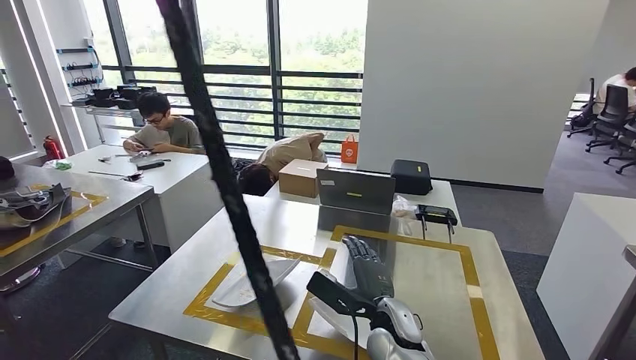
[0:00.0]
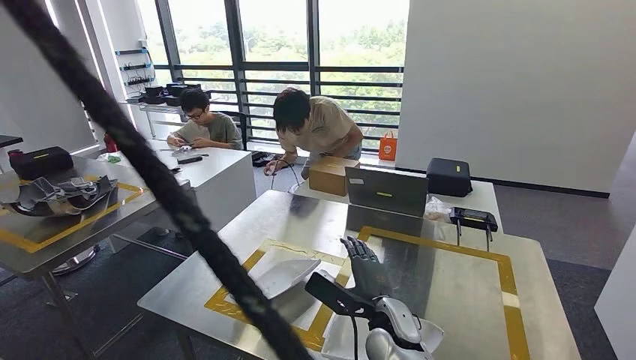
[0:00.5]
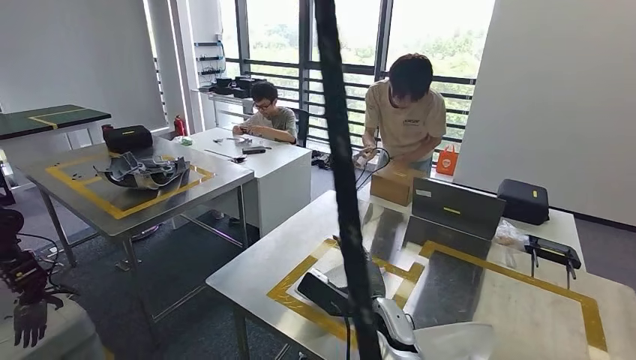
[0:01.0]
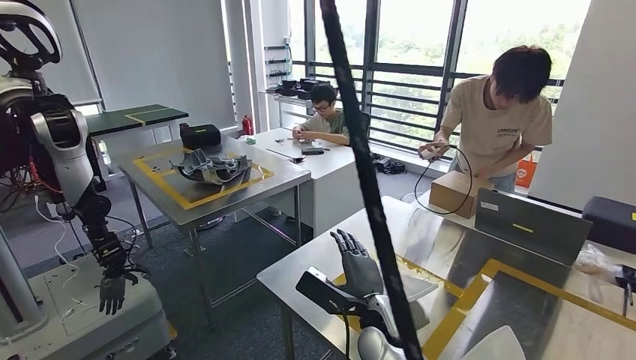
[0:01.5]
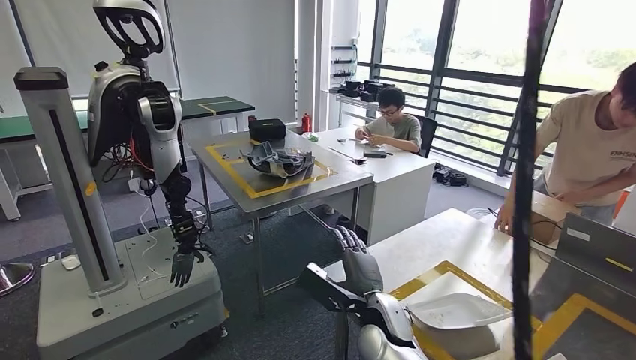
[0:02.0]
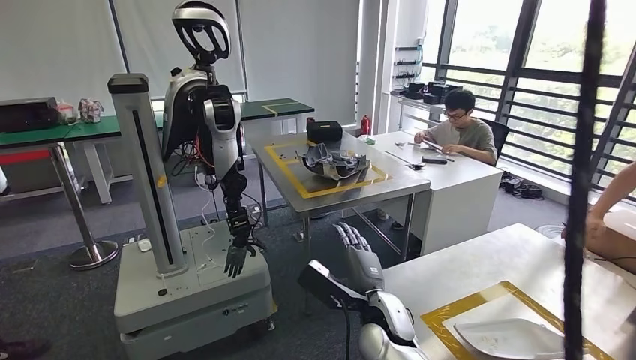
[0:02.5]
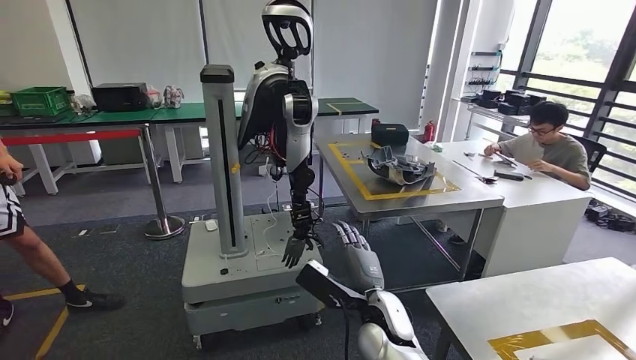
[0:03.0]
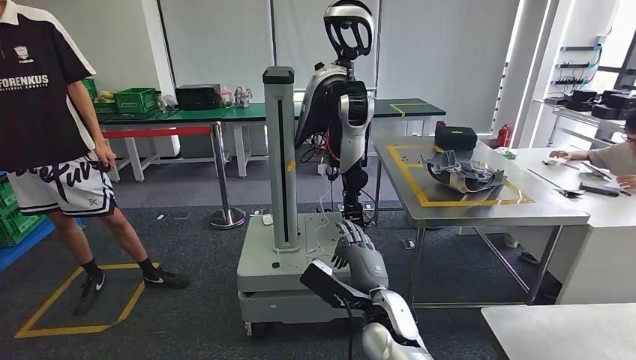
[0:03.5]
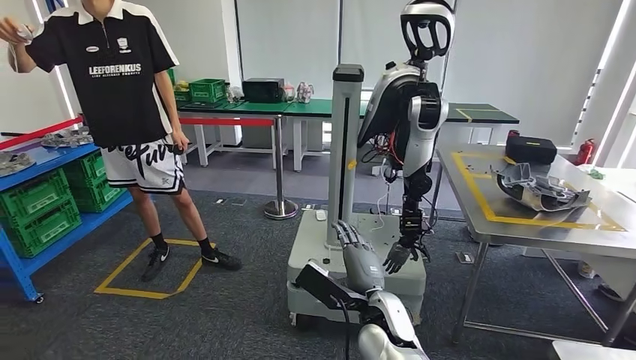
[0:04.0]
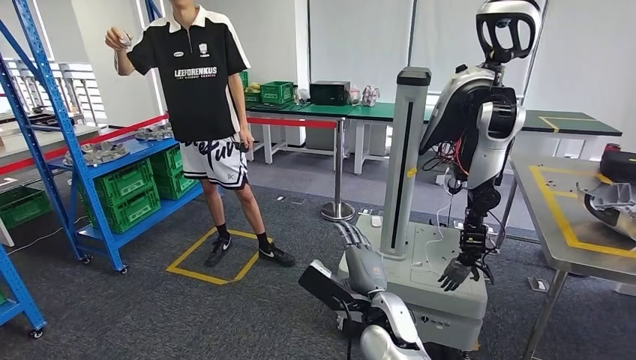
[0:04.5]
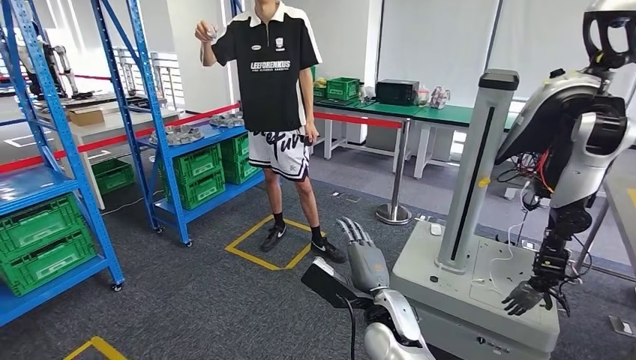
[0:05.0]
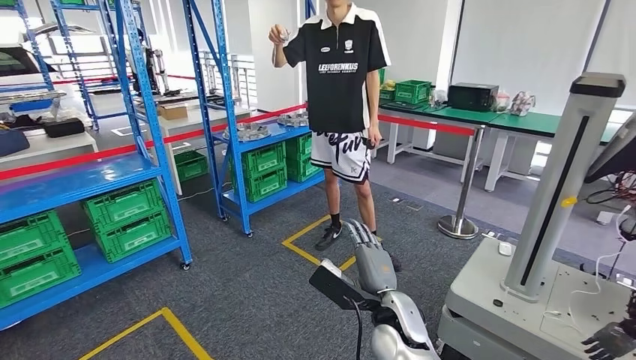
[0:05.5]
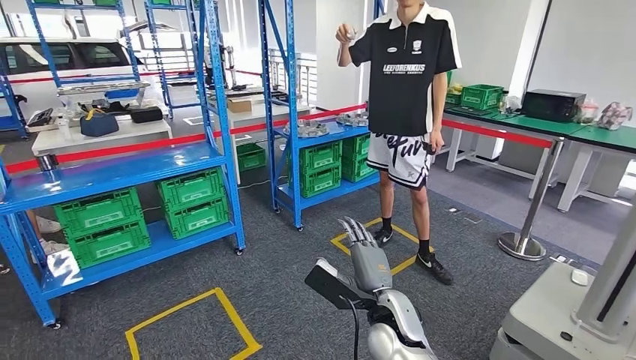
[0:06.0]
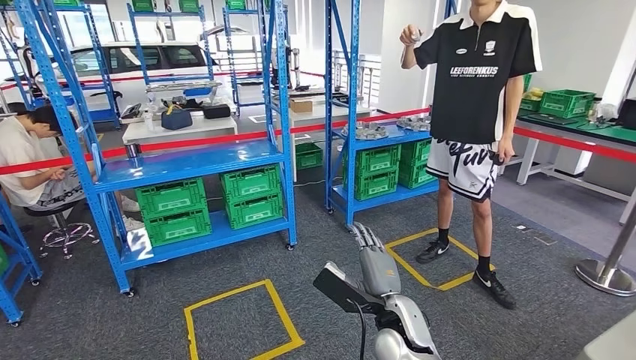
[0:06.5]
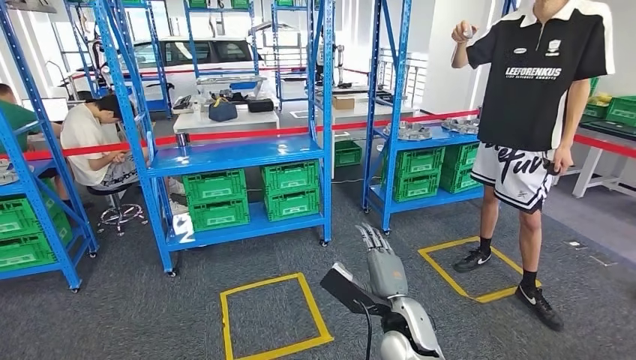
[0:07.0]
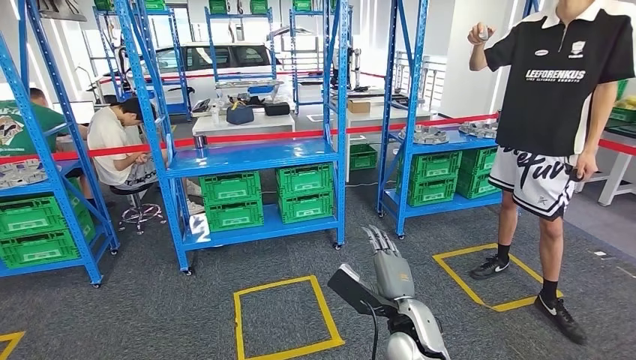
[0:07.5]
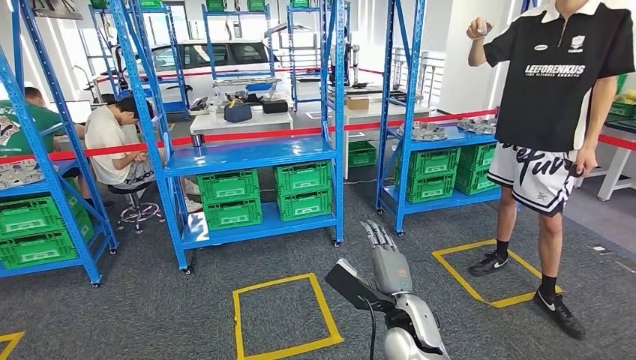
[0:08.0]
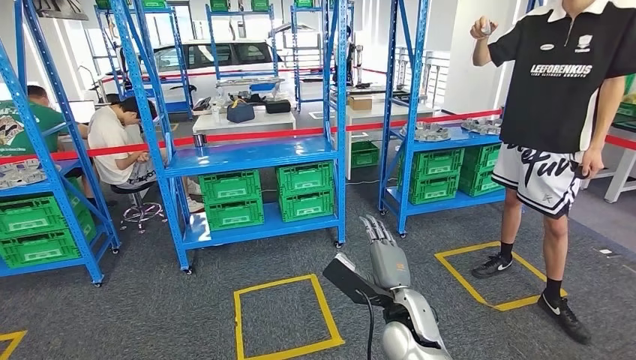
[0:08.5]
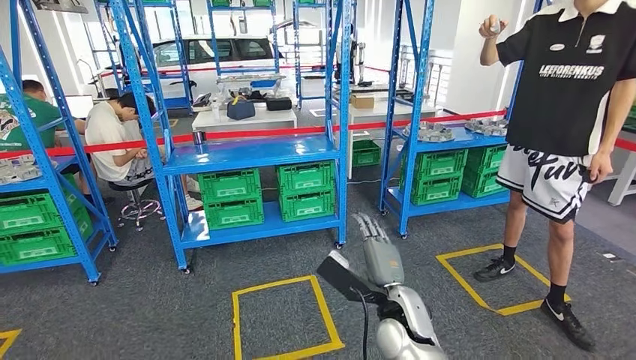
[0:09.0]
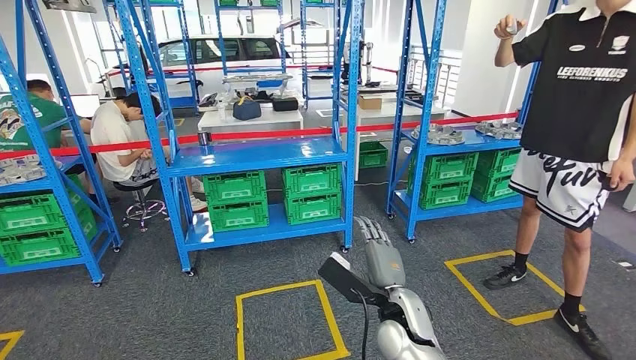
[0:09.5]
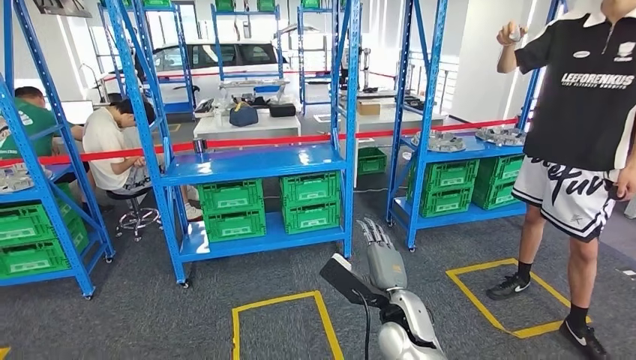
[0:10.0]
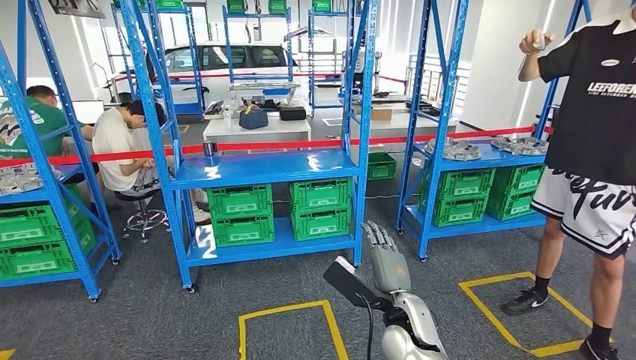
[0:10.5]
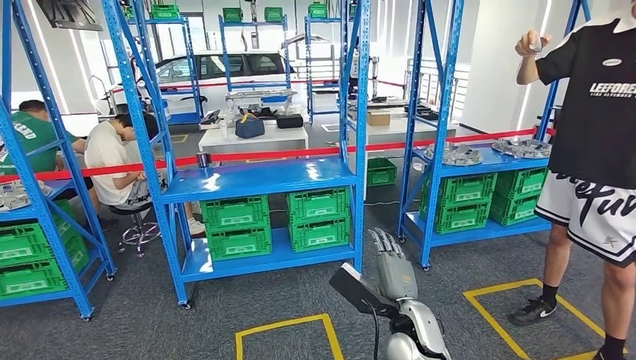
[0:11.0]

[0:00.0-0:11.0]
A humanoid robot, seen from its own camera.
Step, 0:00.0 to 0:03.0: Insert the small component into the corresponding slot on the workbench.

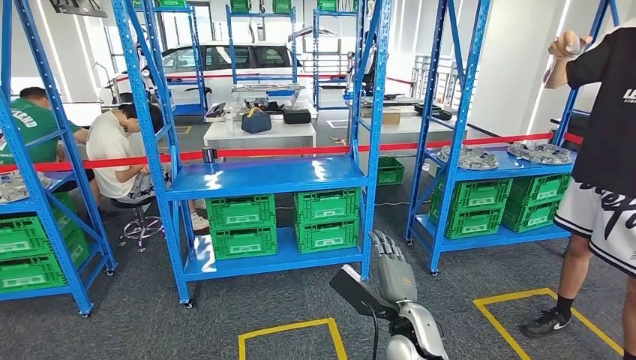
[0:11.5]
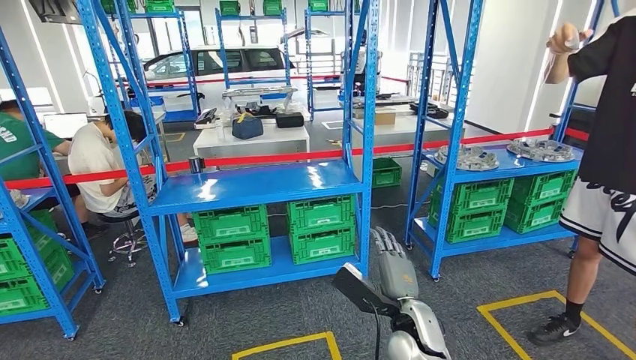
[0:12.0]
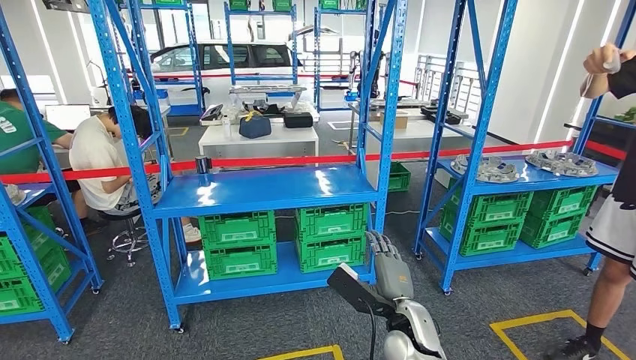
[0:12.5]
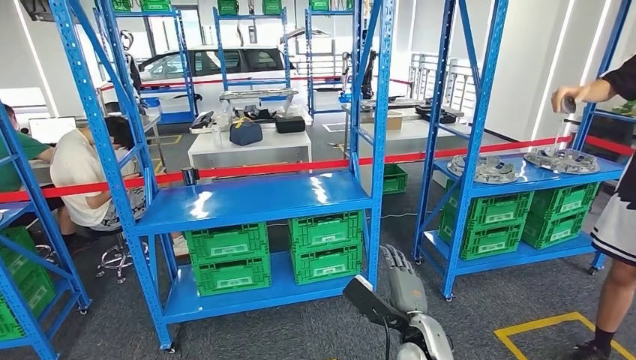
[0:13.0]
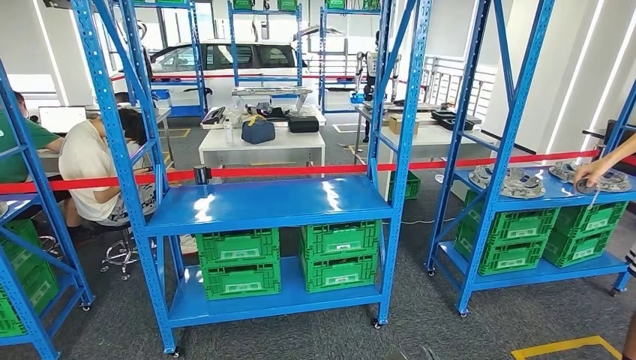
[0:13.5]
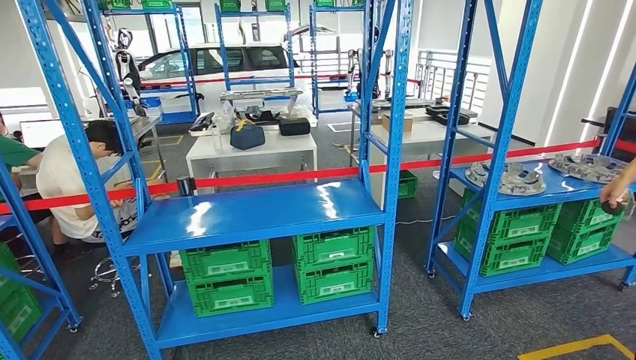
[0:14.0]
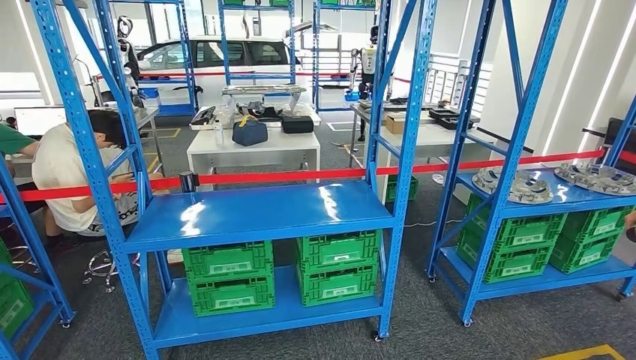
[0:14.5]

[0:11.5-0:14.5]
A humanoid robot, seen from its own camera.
Step, 0:11.5 to 0:14.5: Return to the initial position at the workbench.
